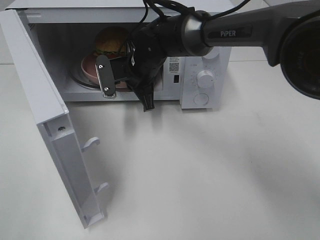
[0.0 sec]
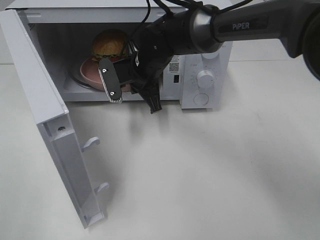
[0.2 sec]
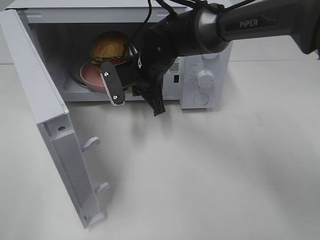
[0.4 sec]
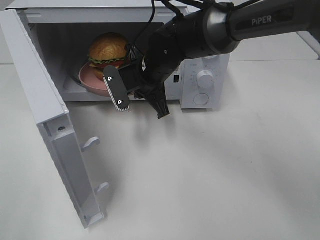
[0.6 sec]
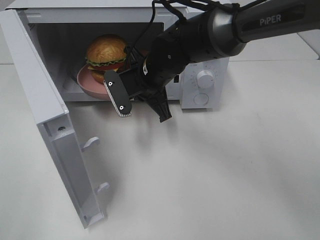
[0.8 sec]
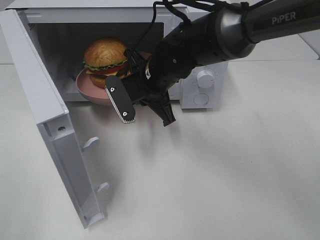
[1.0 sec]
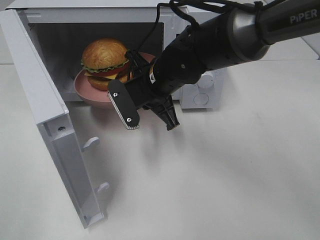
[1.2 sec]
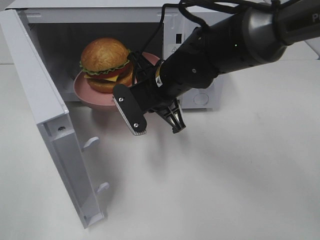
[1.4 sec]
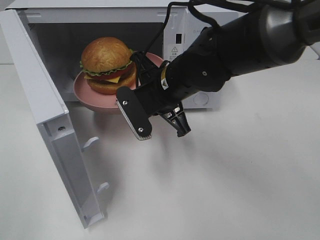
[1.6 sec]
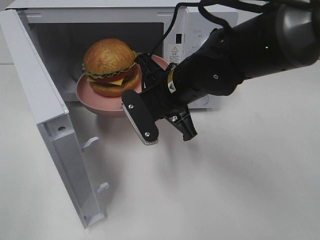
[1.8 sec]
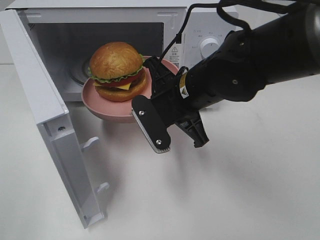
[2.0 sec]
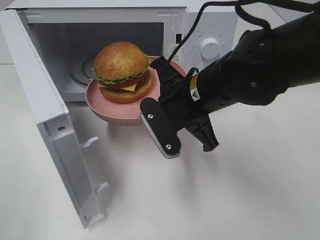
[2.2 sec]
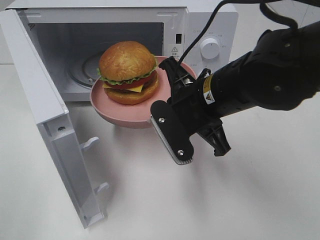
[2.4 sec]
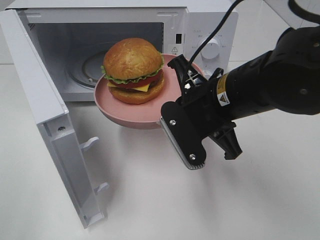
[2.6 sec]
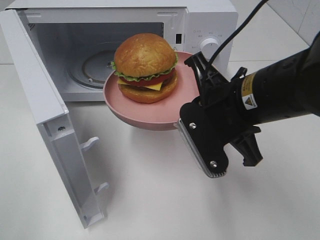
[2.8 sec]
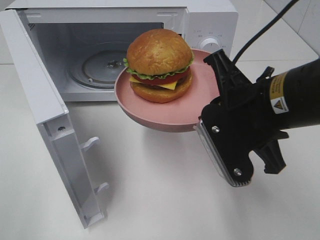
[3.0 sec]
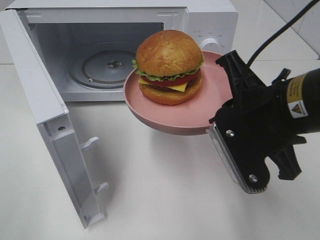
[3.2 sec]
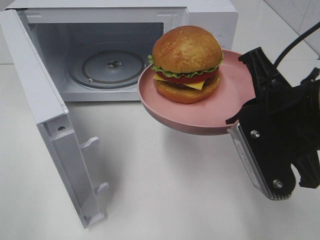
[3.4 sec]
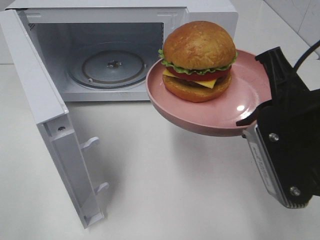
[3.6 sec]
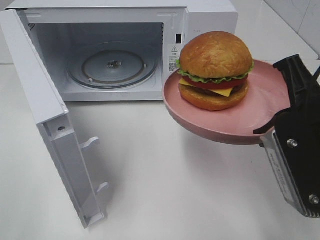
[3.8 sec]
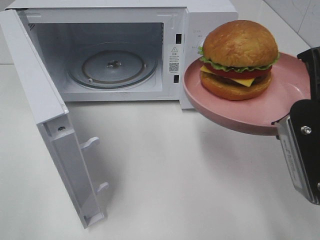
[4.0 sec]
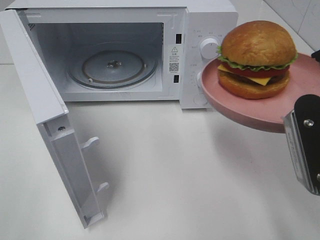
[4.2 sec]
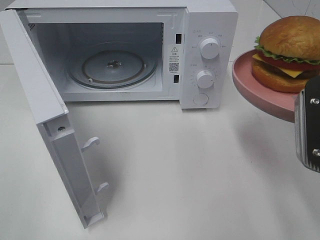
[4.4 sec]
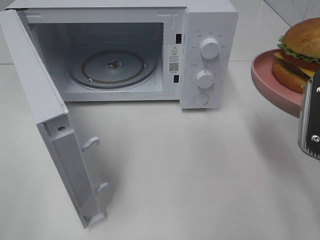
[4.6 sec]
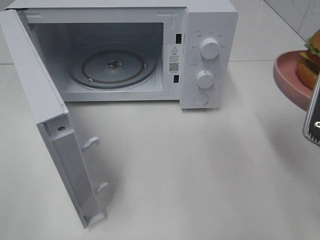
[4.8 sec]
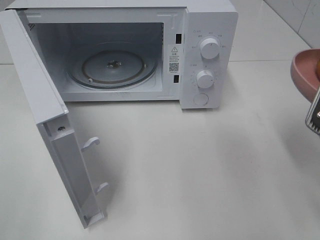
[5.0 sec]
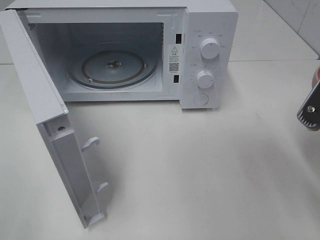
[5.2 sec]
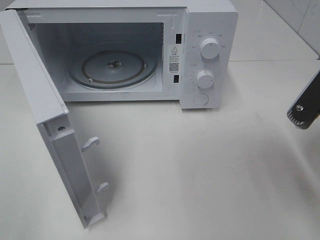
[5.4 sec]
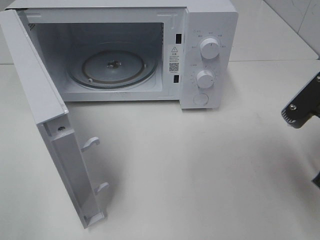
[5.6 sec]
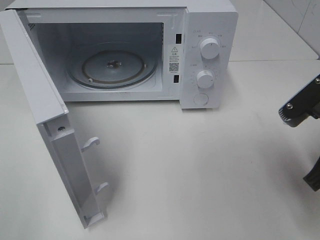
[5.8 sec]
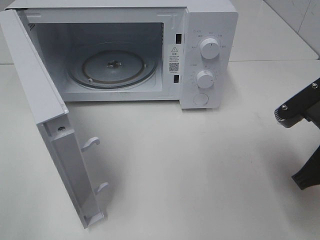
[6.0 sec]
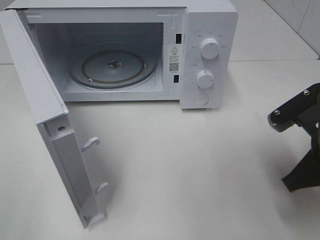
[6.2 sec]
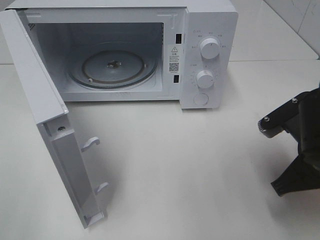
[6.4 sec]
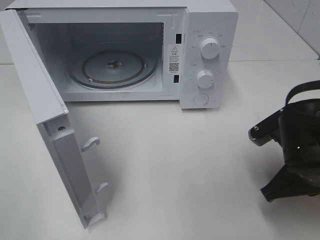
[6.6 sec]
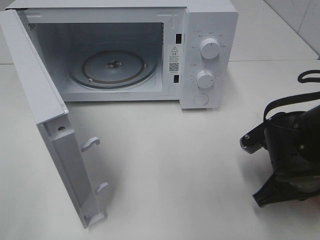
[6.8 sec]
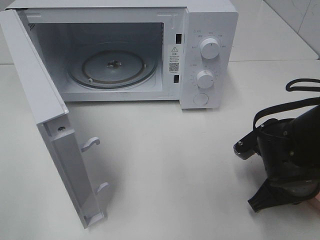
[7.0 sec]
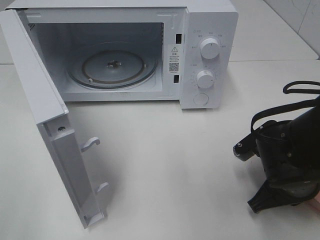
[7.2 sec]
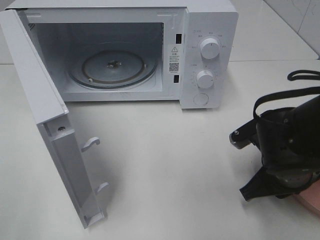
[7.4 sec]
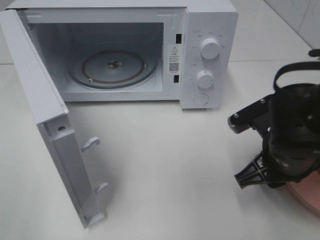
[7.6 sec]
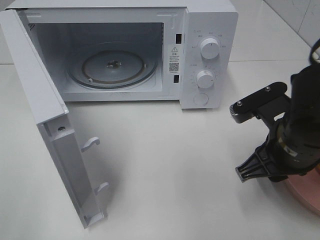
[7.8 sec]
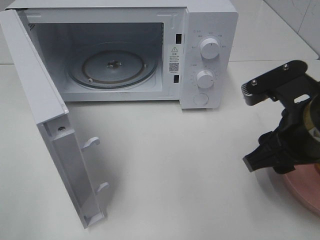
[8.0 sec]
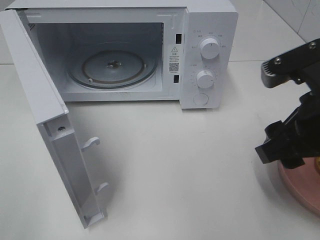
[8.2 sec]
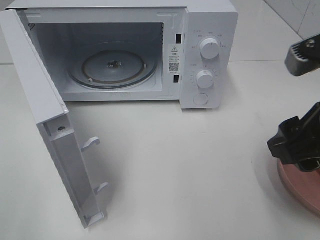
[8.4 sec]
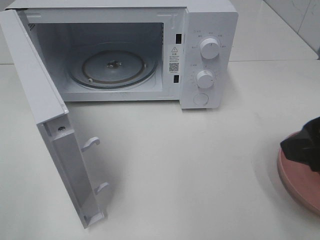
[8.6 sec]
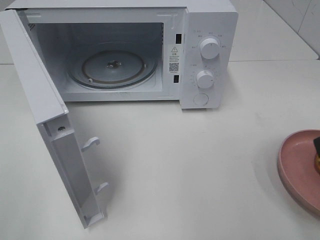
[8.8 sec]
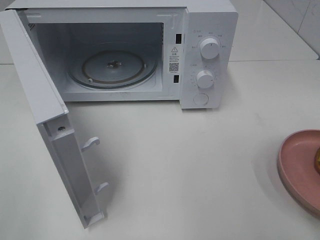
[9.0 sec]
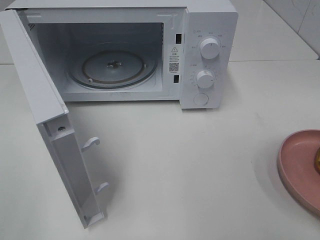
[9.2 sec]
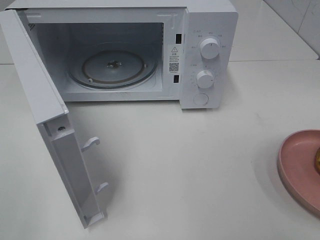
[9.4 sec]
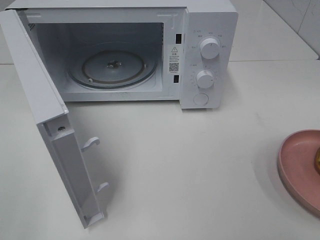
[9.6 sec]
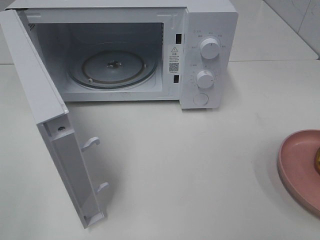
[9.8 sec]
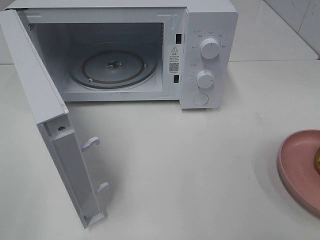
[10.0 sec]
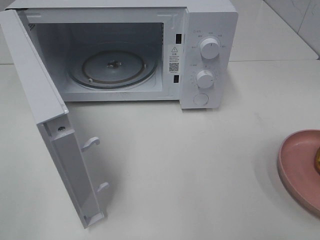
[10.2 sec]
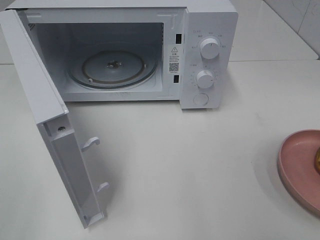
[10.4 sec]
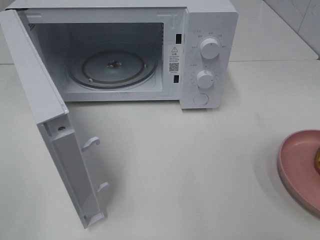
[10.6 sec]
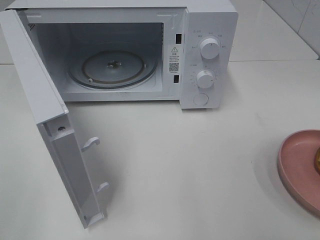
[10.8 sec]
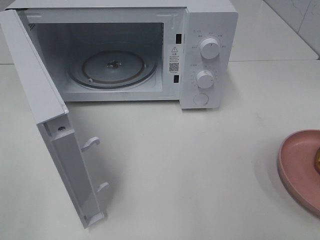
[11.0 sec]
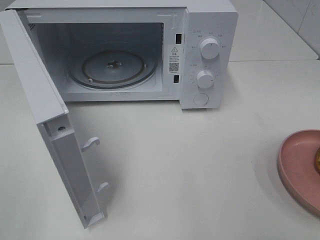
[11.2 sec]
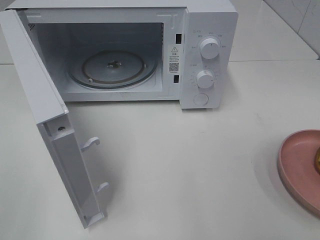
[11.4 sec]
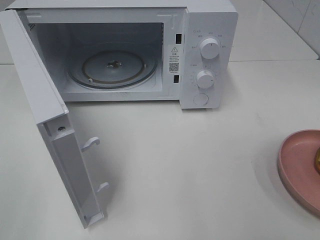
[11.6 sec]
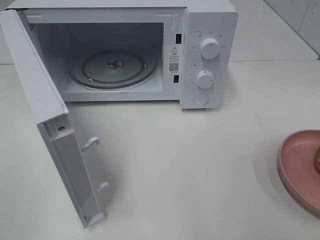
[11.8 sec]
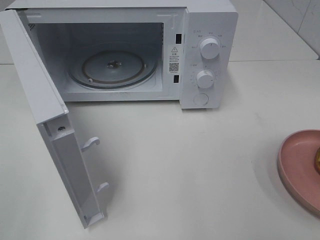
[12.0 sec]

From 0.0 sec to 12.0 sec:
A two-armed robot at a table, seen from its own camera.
Task of the whole recording: Heat the burger.
Step, from 0.0 sec to 7.6 sec: Right hand: place the plate on the table.
From 0.0 sec to 1.6 sec: The right gripper heads backward, covering approximately 10 cm.
From 1.6 sec to 3.0 sec: The right gripper travels backward, to the right and upward by roughly 15 cm.
From 3.0 sec to 4.4 sec: The right gripper shifts approximately 10 cm to the right and backward.
From 4.4 sec to 6.0 sec: The right gripper goes some 5 cm downward.
From 6.0 sec to 7.6 sec: The right gripper moves about 5 cm, and opens.
From 7.6 sec to 9.0 sec: The right gripper is displaced upward, backward and to the right by roughly 25 cm, and opens up.
From 10.4 sec to 12.0 sec: Both grippers stay about where they are.

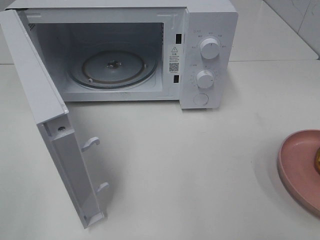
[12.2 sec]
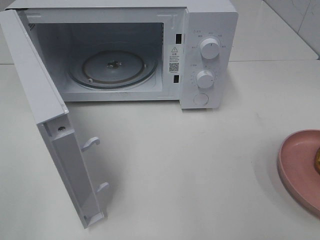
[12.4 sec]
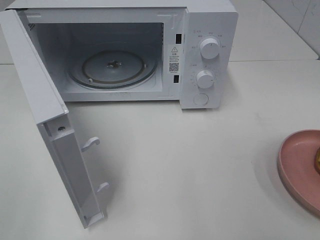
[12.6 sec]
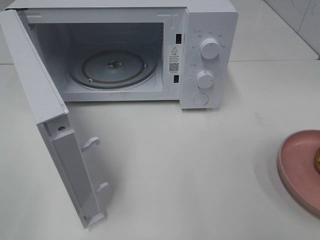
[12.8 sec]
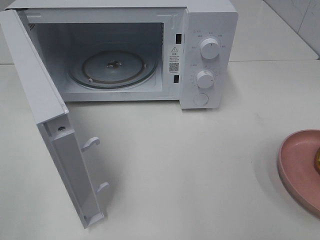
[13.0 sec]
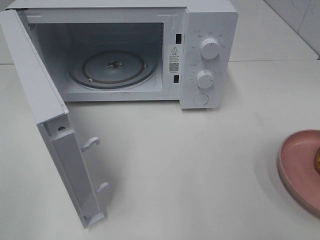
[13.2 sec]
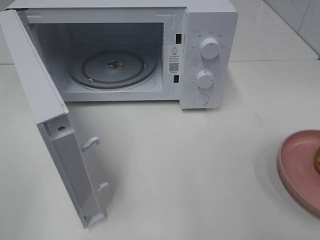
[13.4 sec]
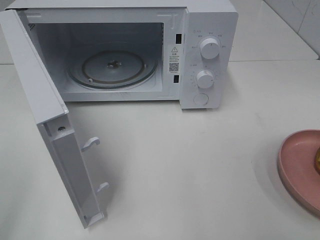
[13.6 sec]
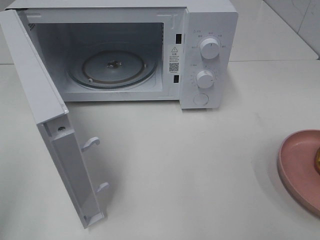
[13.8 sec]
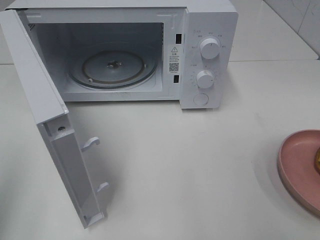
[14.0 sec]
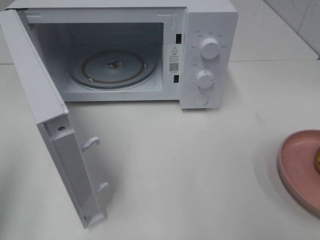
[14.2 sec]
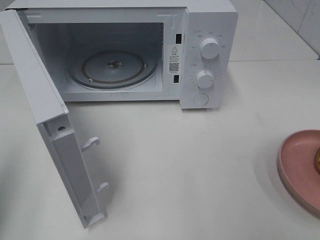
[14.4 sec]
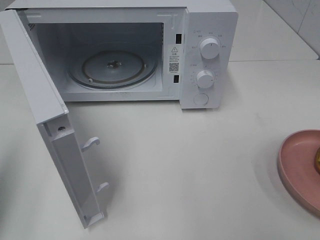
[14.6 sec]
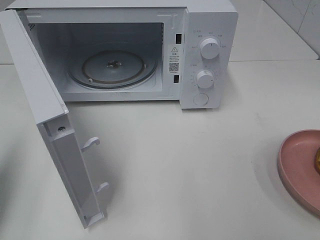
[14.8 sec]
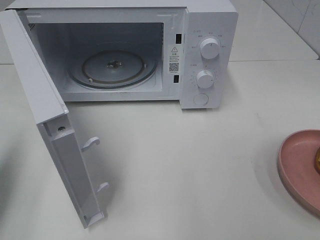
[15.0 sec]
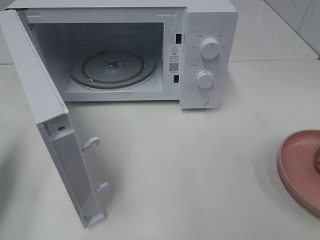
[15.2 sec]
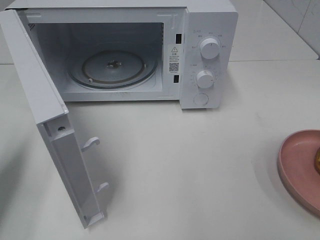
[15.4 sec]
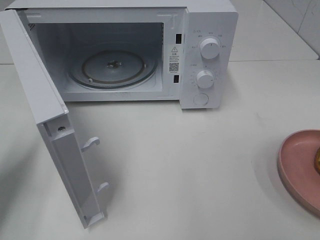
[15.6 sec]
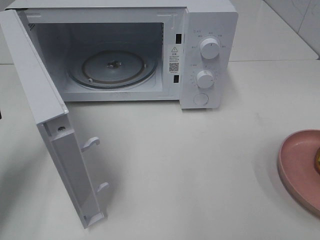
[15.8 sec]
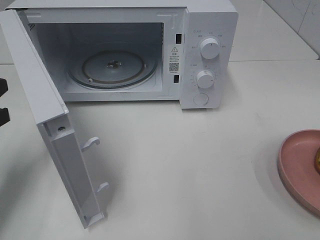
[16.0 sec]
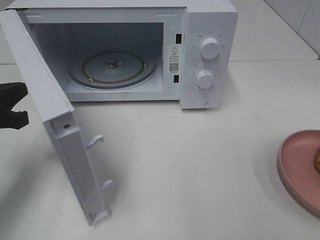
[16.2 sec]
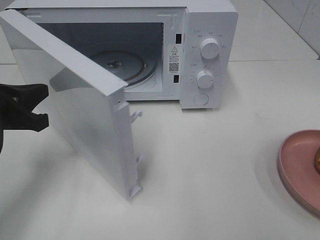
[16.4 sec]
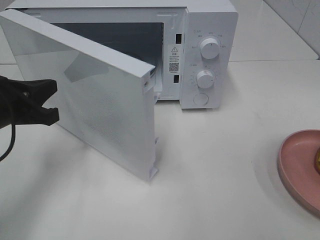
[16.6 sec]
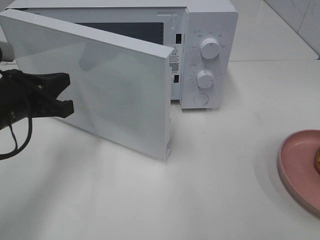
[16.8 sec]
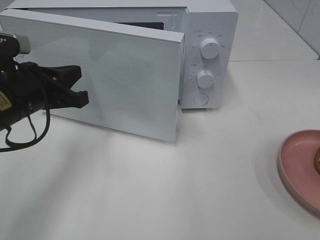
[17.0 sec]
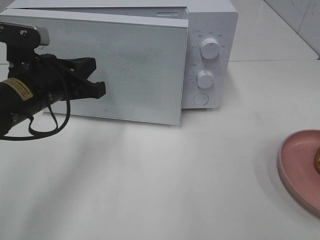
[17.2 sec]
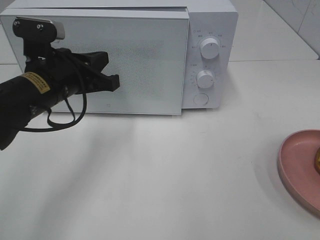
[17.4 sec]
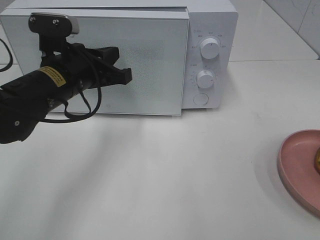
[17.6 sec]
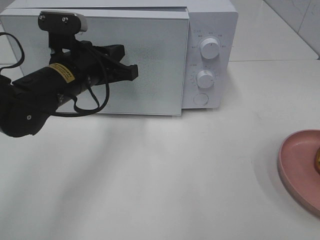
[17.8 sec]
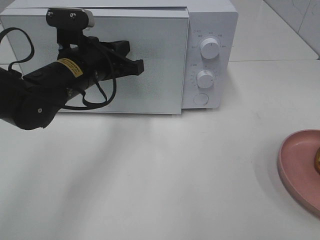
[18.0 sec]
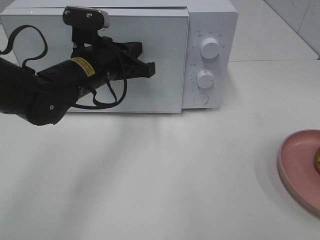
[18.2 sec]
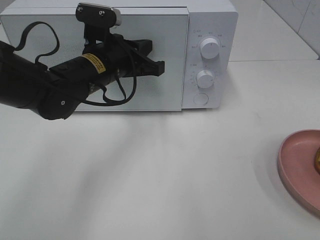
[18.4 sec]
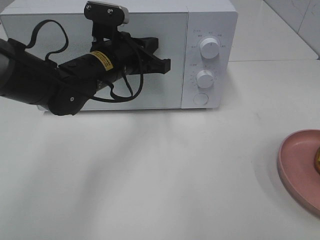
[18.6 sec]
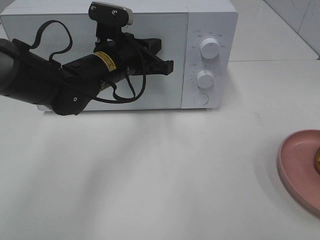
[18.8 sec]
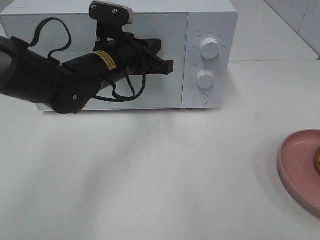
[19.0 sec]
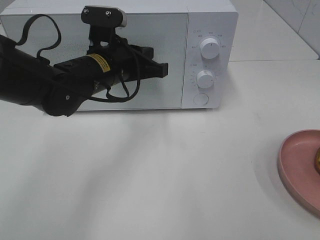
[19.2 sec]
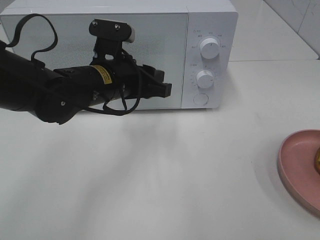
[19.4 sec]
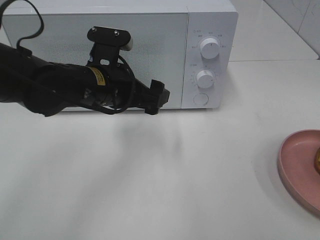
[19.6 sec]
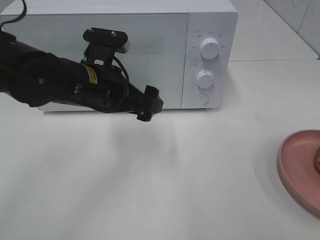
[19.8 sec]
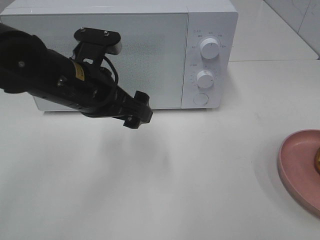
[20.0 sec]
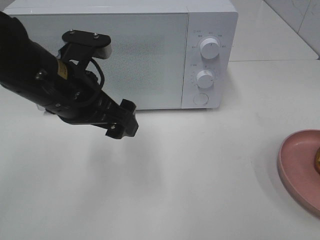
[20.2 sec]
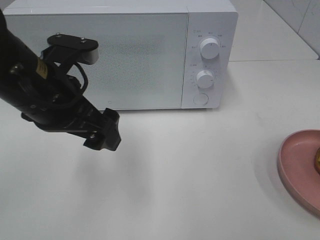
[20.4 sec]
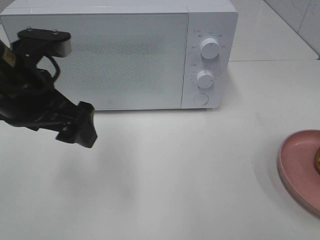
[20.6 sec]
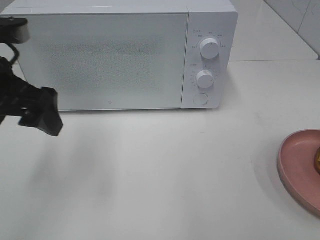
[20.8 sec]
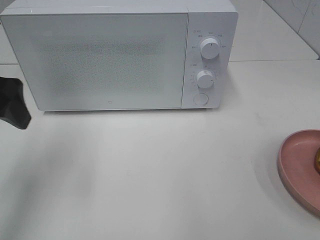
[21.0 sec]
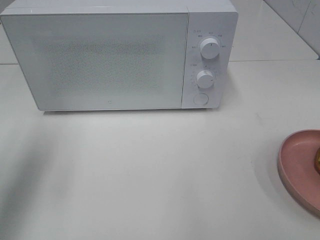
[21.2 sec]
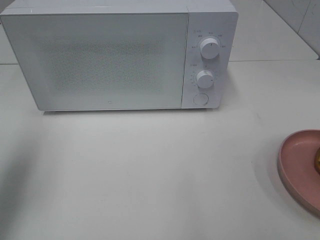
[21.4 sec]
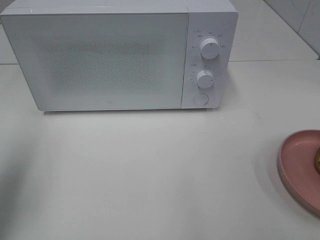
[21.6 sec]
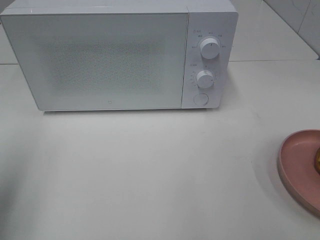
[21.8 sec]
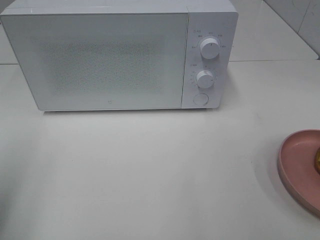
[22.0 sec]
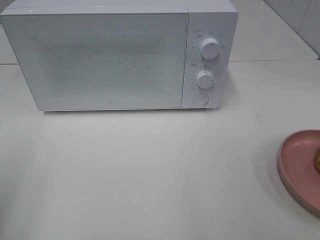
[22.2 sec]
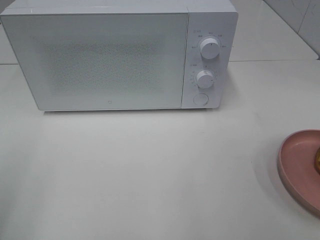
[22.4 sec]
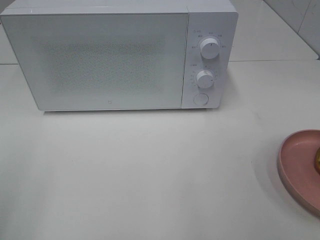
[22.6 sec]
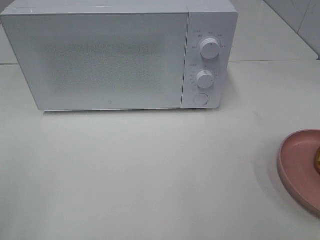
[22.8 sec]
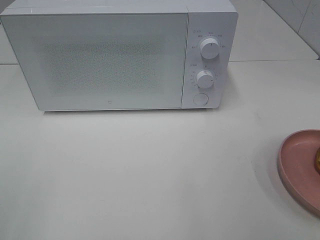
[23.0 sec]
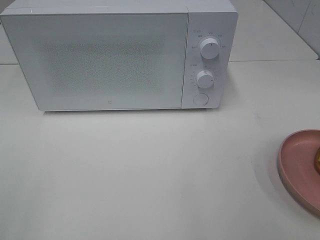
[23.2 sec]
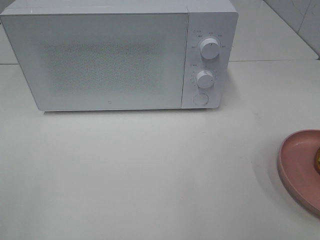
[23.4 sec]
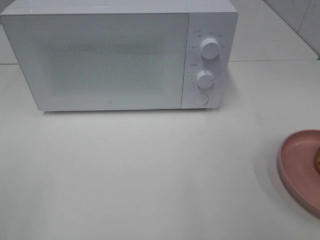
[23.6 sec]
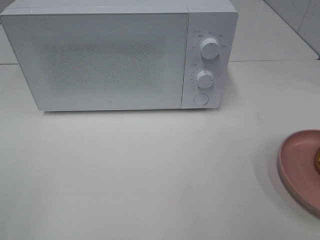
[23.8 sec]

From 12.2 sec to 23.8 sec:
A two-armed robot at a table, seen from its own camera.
Task of the whole recording: Heat the burger.
Step, from 12.2 sec to 19.4 sec: Left hand: close the microwave door.
From 13.6 sec to 15.0 sec: The left gripper travels forward and downward by approximately 15 cm, and closes.
From 15.0 sec to 16.6 sec: The left gripper shifts approximately 15 cm to the right, forward and downward.
From 16.6 sec to 18.0 sec: The left gripper shifts roughly 15 cm to the right and forward.
From 18.0 sec to 19.4 sec: The left gripper opens up.
From 19.4 sec to 21.0 sec: The left gripper is displaced to the left, upward and backward by about 20 cm, and opens its fingers.
From 21.0 sec to 22.4 sec: The left gripper is displaced backward and to the left by some 20 cm.
